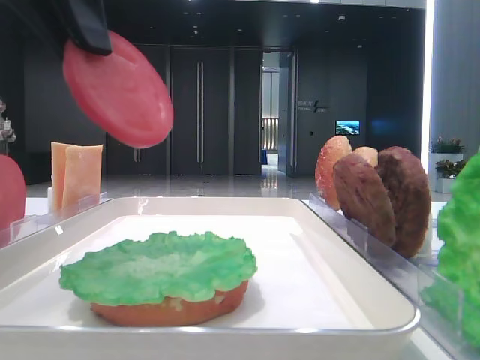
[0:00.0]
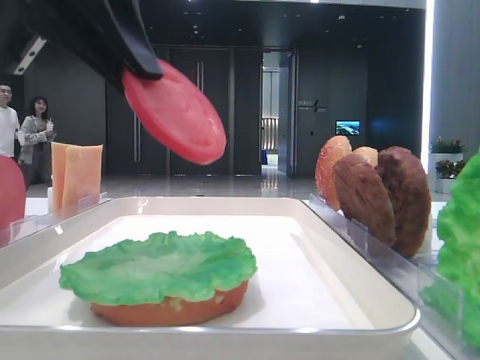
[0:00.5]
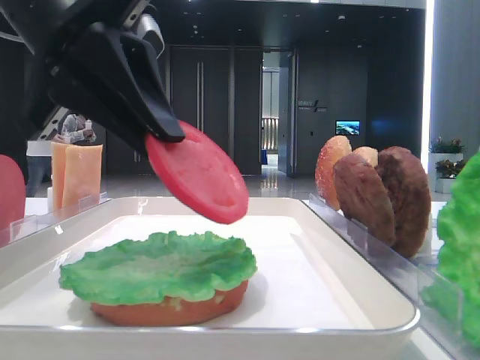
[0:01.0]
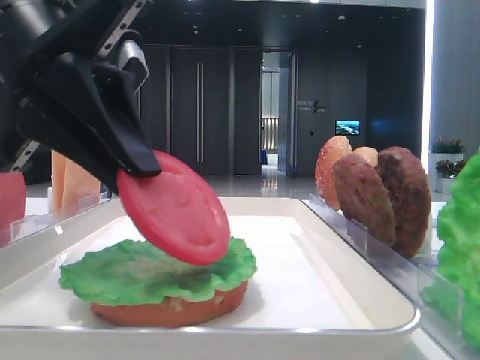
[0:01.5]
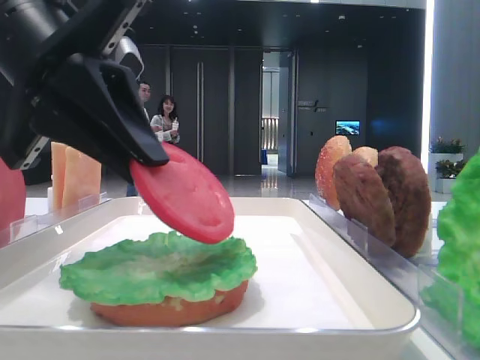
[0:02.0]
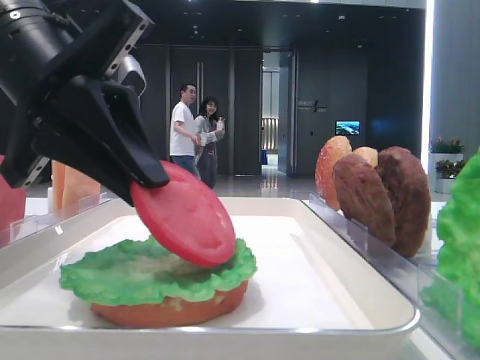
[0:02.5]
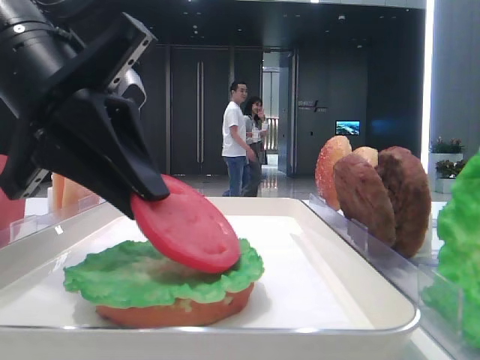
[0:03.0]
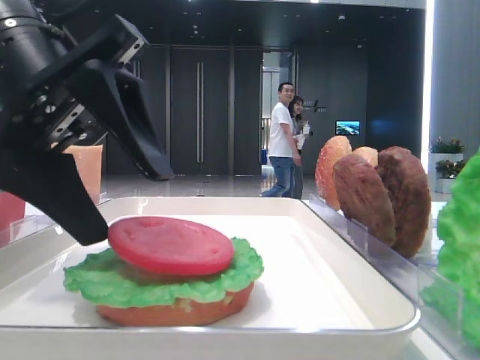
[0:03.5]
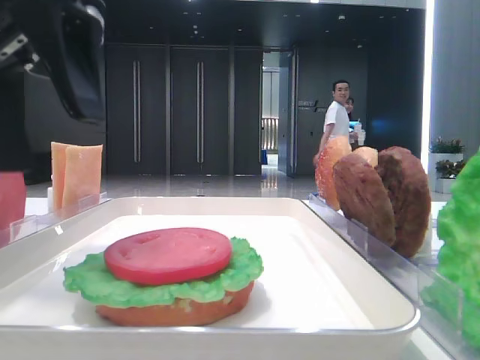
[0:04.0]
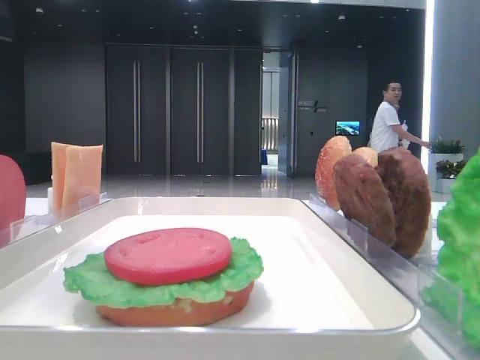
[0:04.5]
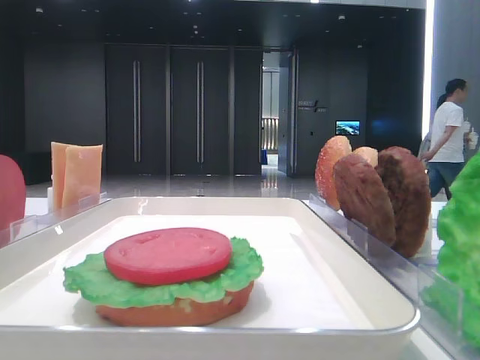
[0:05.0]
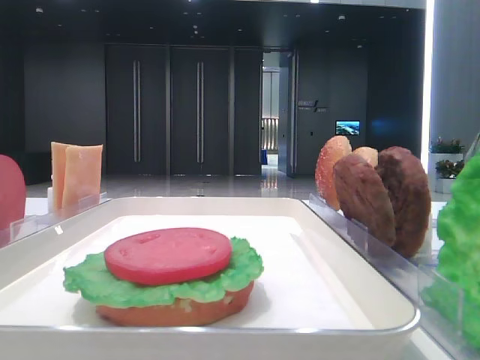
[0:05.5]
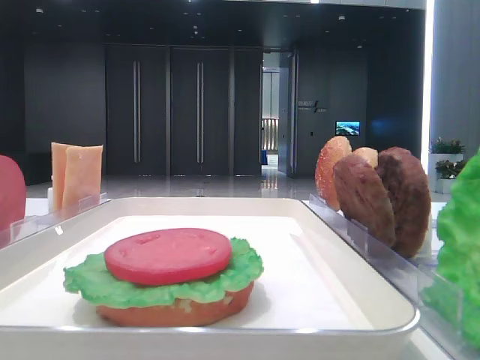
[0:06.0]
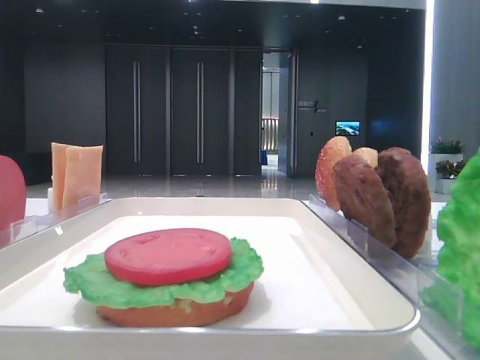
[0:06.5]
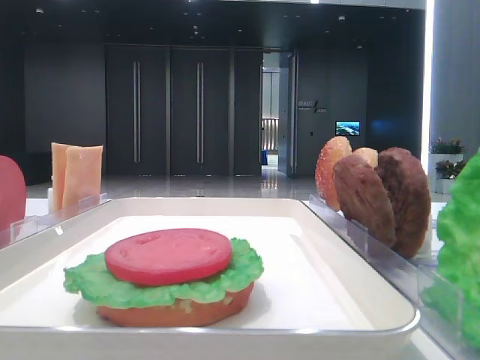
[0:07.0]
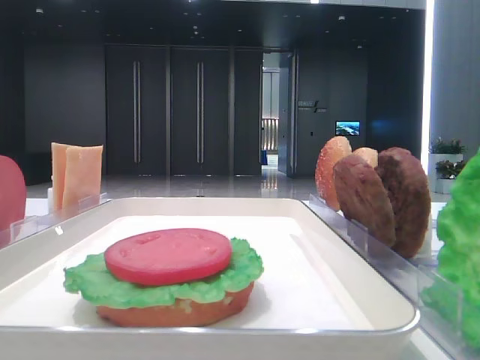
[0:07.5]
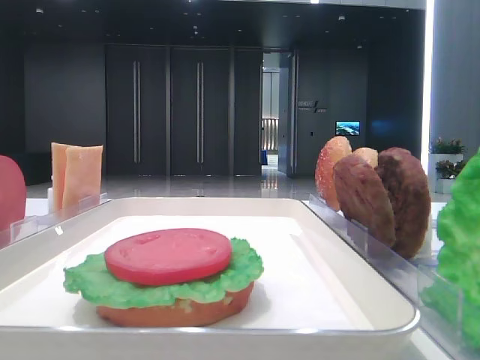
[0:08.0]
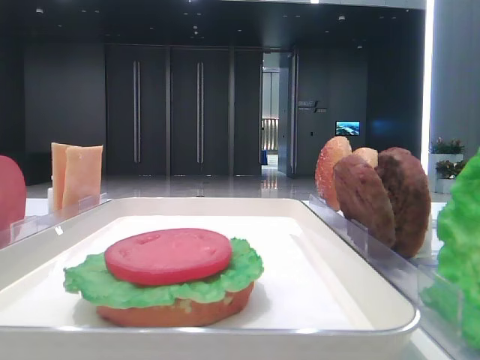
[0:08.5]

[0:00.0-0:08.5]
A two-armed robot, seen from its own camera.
Step, 0:00.0 to 0:03.0: Place the tomato slice on the lettuce leaf with the left hand.
0:00.0 to 0:02.0: The left gripper is displaced downward by some 10 cm.
0:02.0 to 0:04.0: The left gripper ends up approximately 5 cm from where it was, and opens.
0:04.0 to 0:06.5: The left gripper travels backward and to the left by some 30 cm.

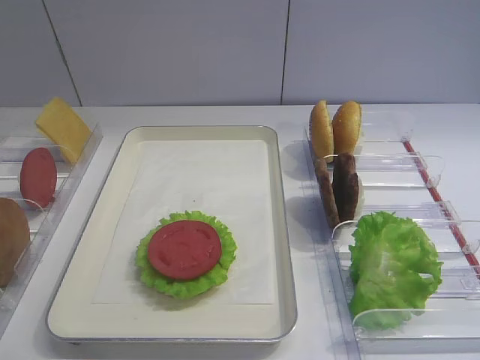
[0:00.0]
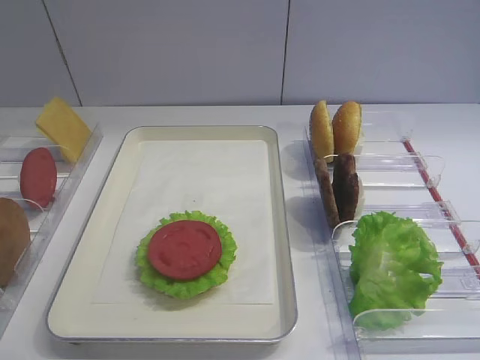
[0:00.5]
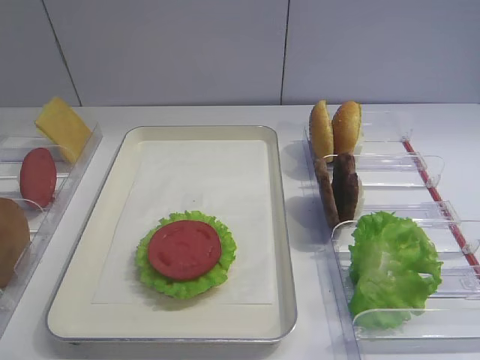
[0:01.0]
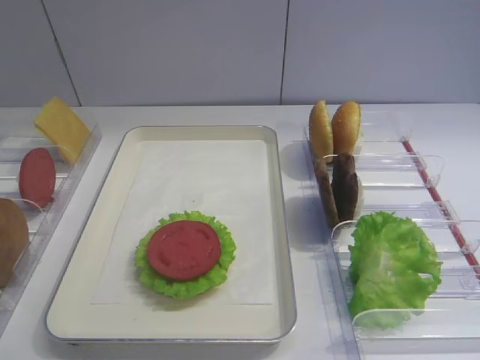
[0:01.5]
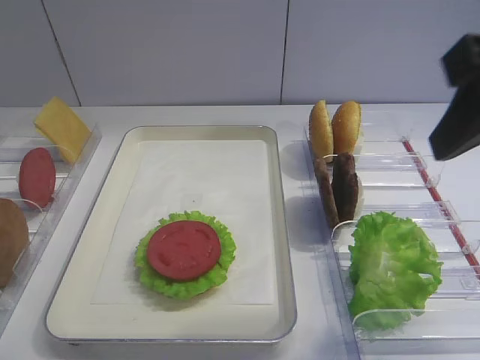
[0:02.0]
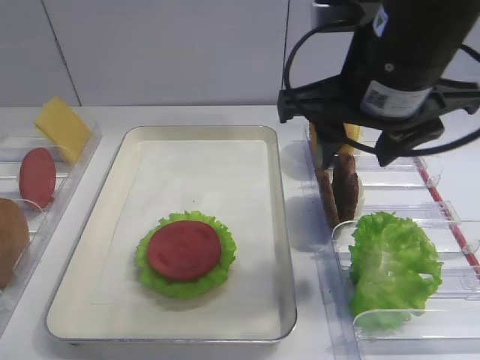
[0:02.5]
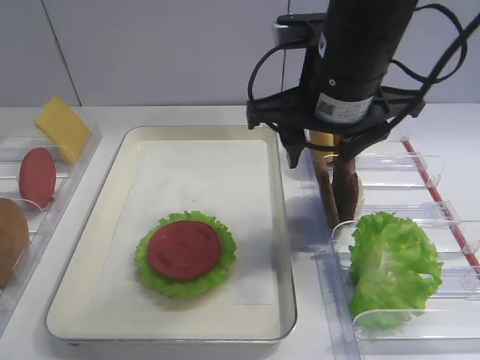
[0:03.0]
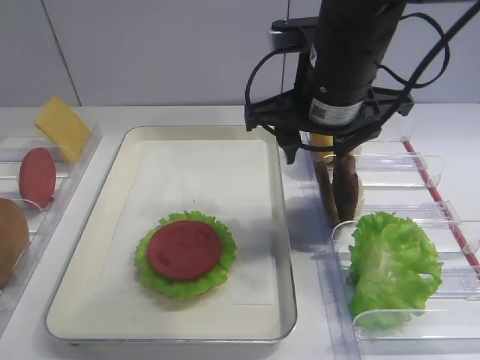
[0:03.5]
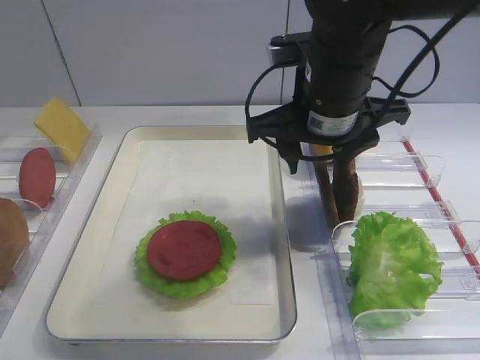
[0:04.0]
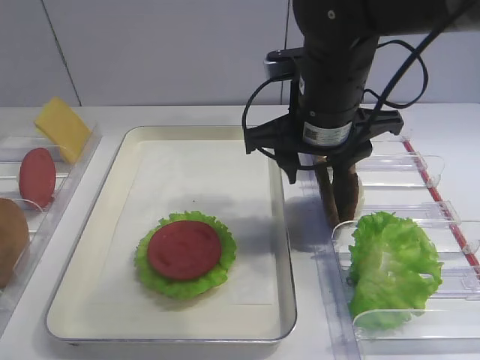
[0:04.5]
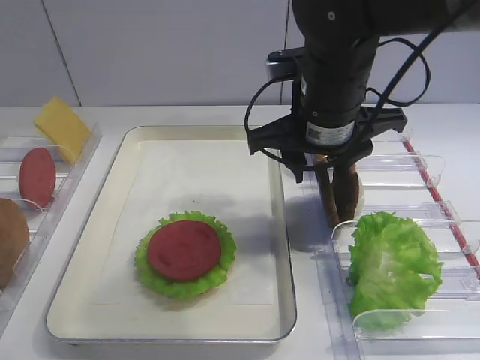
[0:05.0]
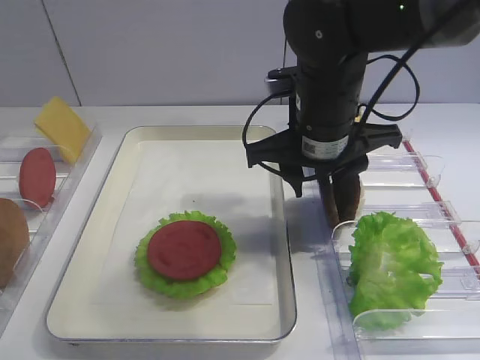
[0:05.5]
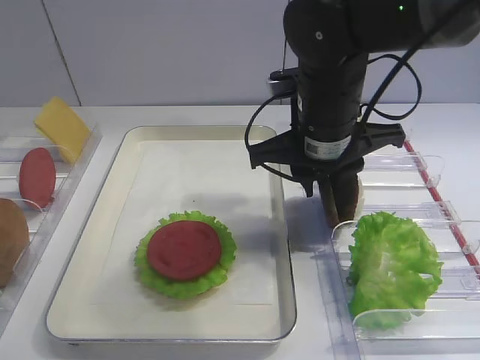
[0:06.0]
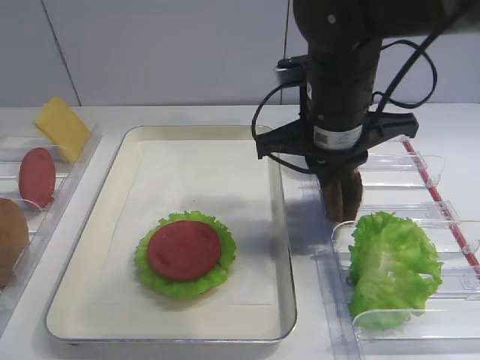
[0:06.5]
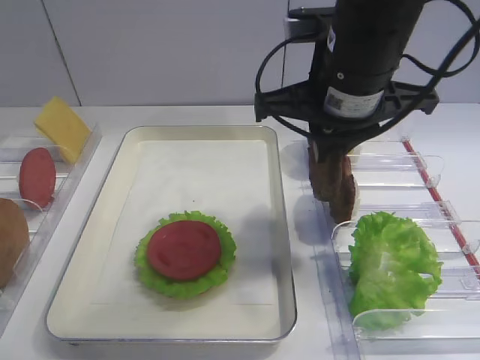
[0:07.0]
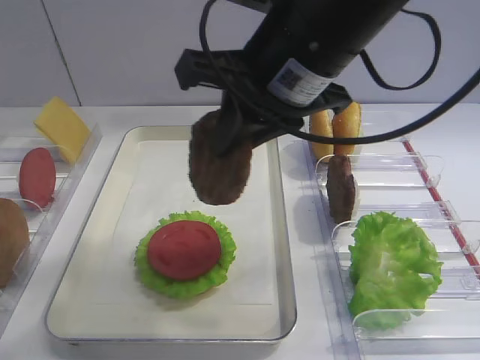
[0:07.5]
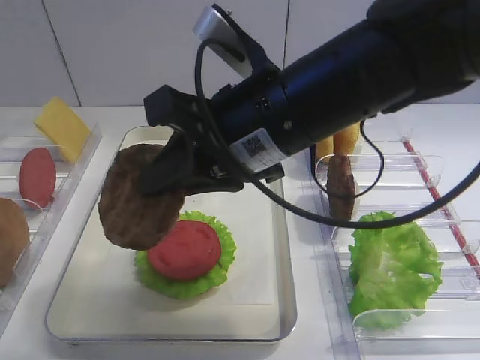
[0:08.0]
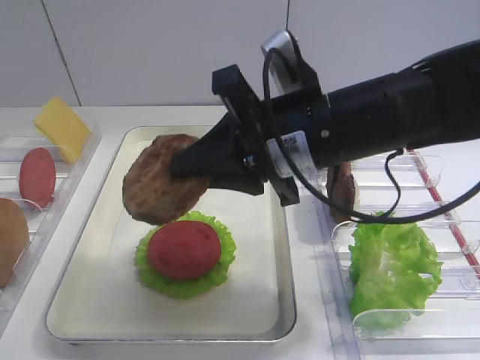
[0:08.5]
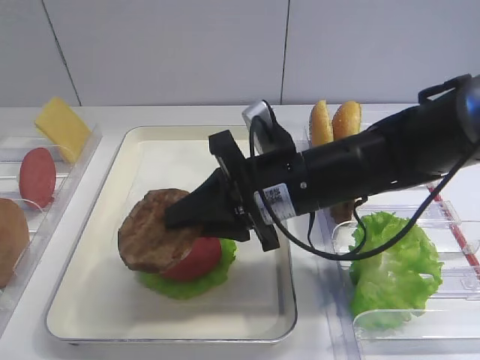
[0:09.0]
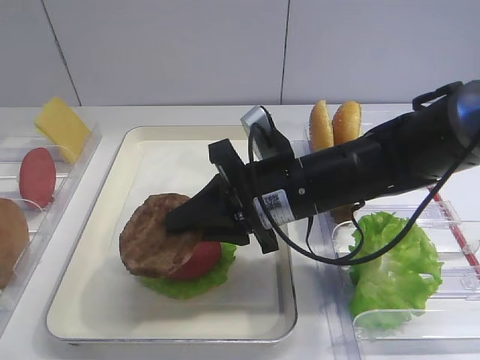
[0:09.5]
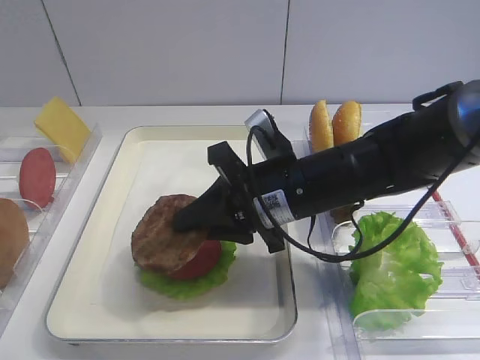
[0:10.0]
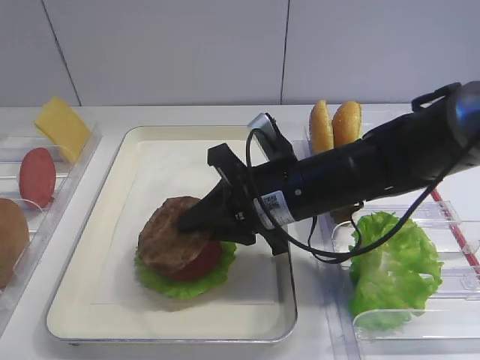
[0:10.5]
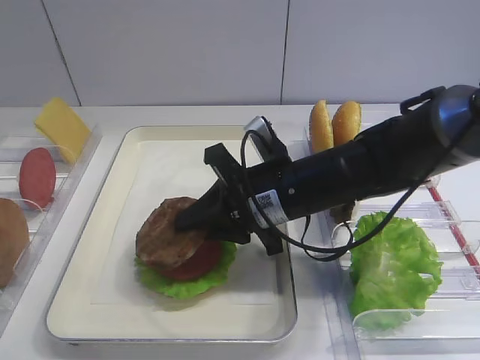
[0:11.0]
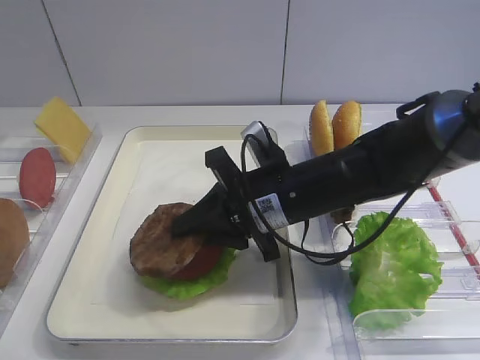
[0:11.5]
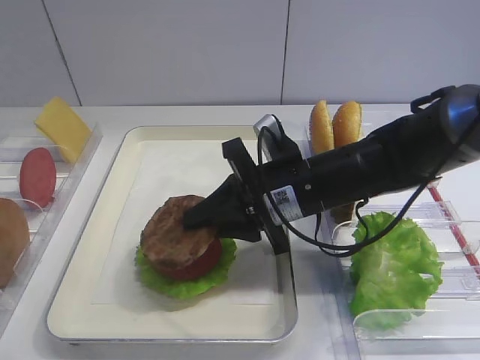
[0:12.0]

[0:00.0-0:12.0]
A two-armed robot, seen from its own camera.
Step, 0:00.0 to 0:06.5: Pick up the cutlet with the right gripper.
0:02.0 to 0:04.0: The right gripper goes roughly 20 cm forward, to the left and downward.
0:04.0 to 0:06.0: The right gripper closes up.
0:06.0 to 0:08.0: The right gripper goes roughly 10 cm backward and upward.
0:08.0 to 0:10.0: The right gripper travels downward by approximately 10 cm.
0:10.0 to 0:12.0: The grippers make only small movements.

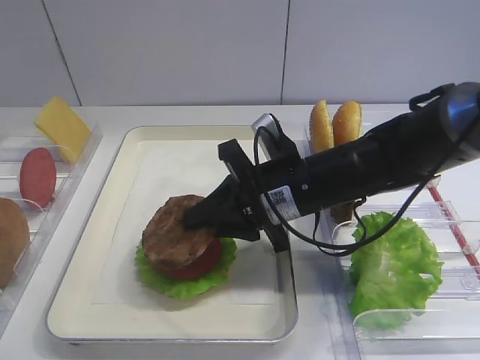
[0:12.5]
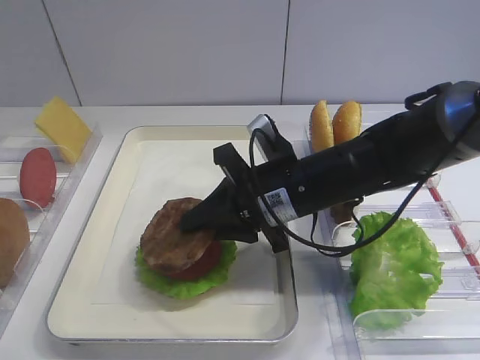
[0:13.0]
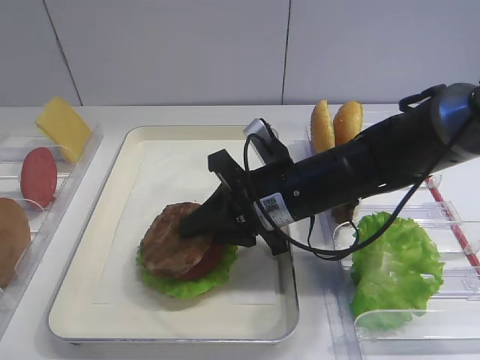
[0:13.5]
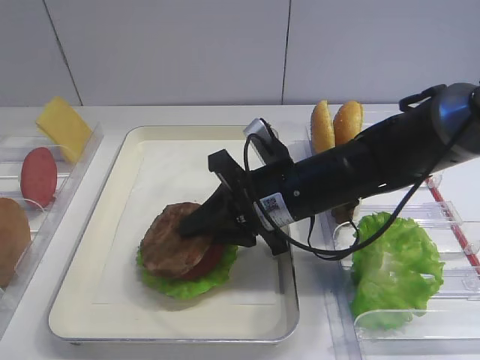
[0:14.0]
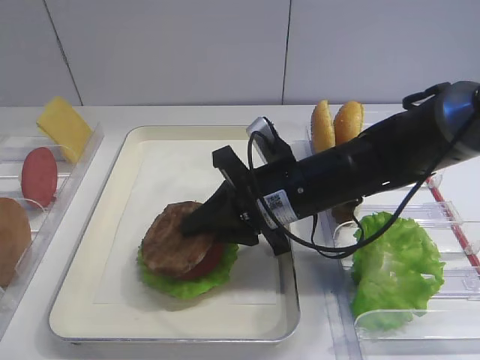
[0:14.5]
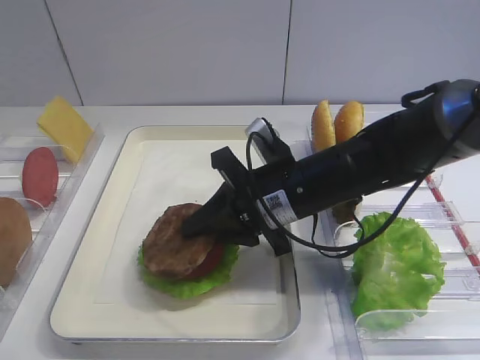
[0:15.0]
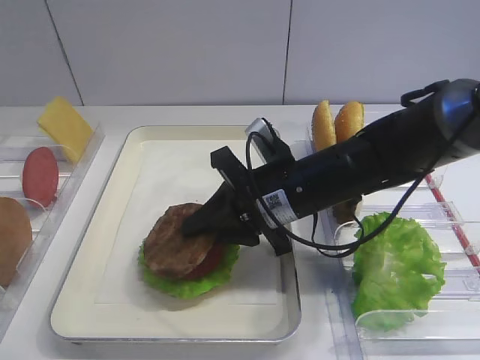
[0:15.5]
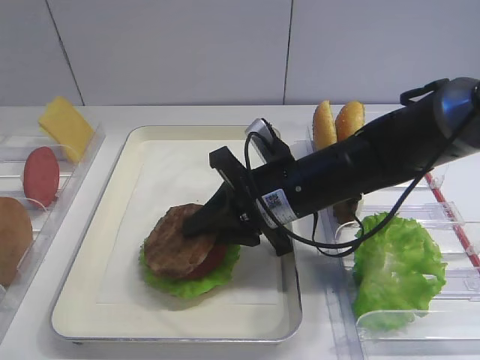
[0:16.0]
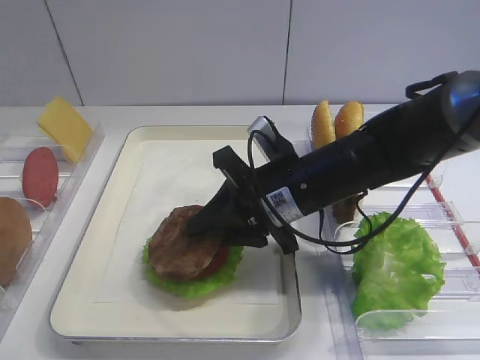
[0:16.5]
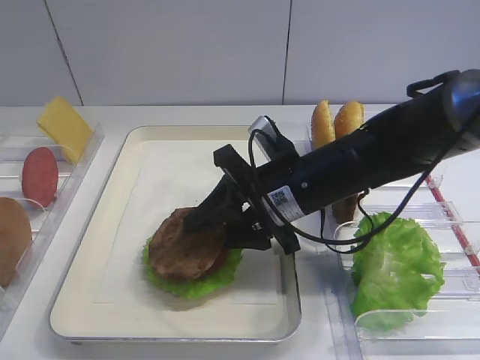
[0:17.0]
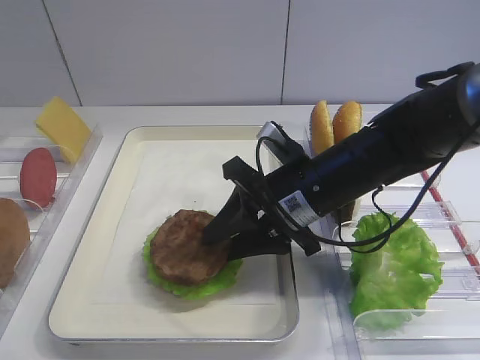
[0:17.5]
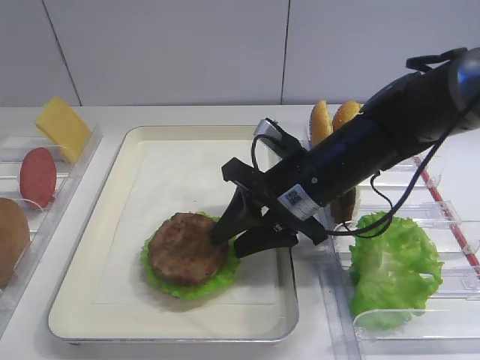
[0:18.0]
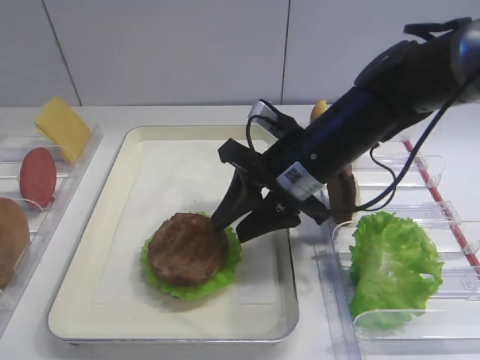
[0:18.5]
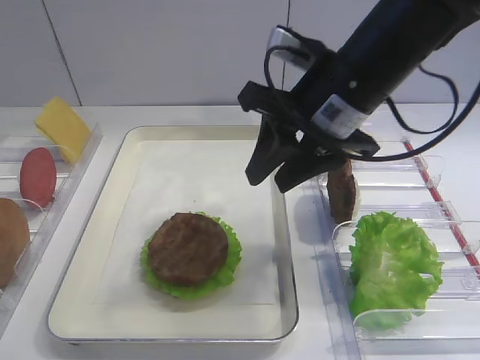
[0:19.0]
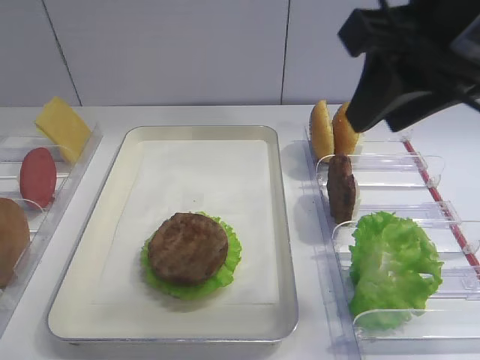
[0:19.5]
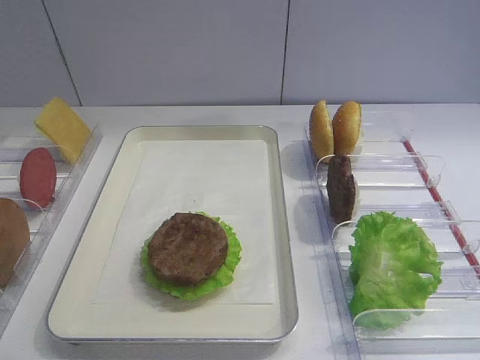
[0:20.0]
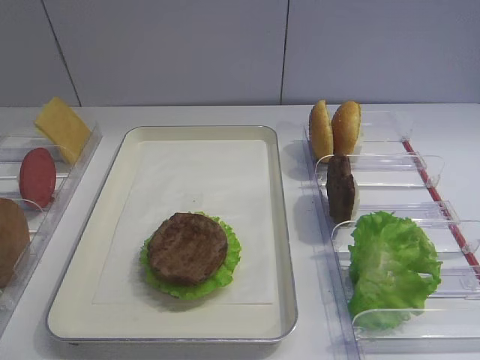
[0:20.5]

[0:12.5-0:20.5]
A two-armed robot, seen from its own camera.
Step, 0:12.5 to 0:18.5: Place the cutlet on the tomato slice with the right gripper.
0:12.5 to 0:14.5: Both grippers stay about where they are.
0:14.5 to 0:16.5: Neither gripper changes place.
0:18.5 to 0:20.5: The right gripper is displaced backward, to the right and upward by about 40 cm.
